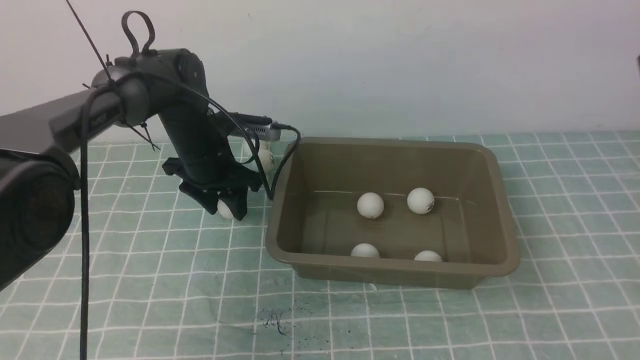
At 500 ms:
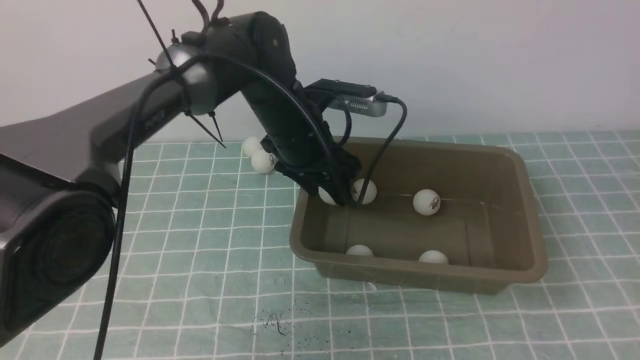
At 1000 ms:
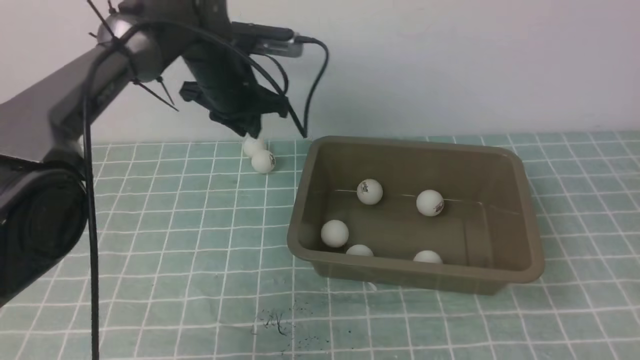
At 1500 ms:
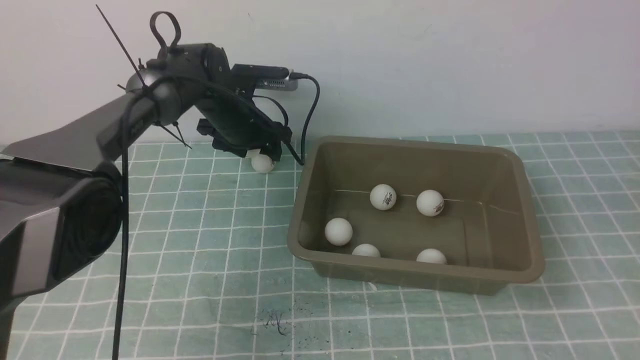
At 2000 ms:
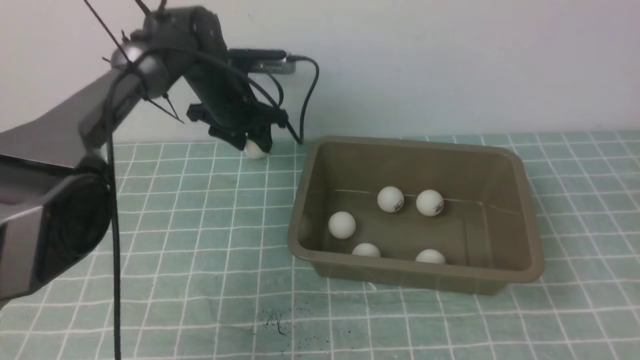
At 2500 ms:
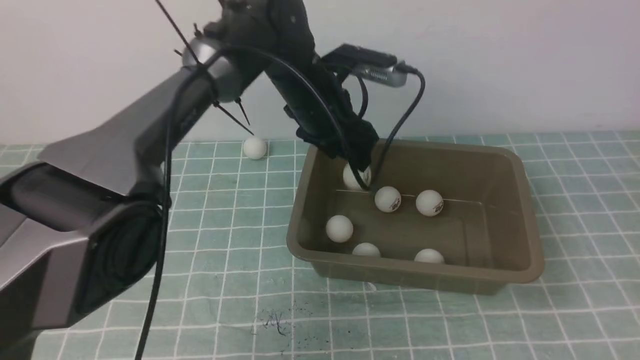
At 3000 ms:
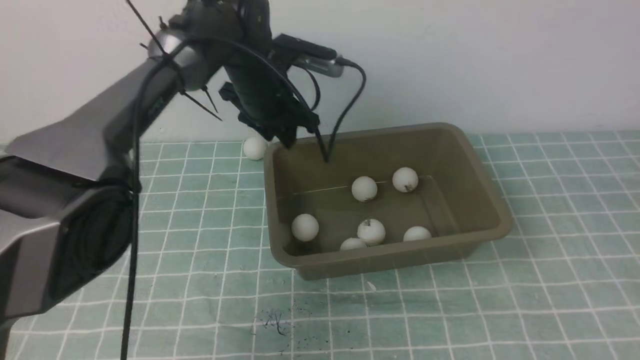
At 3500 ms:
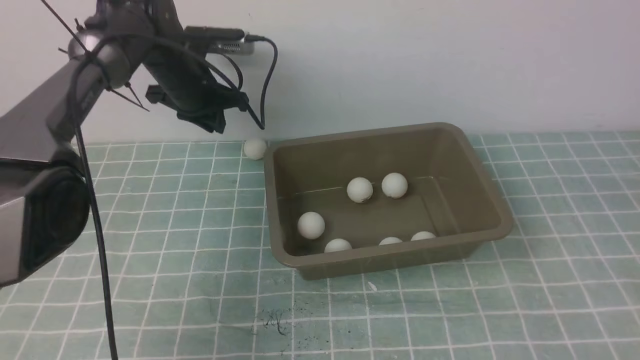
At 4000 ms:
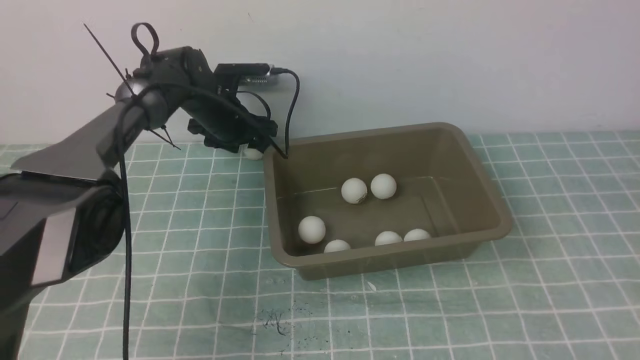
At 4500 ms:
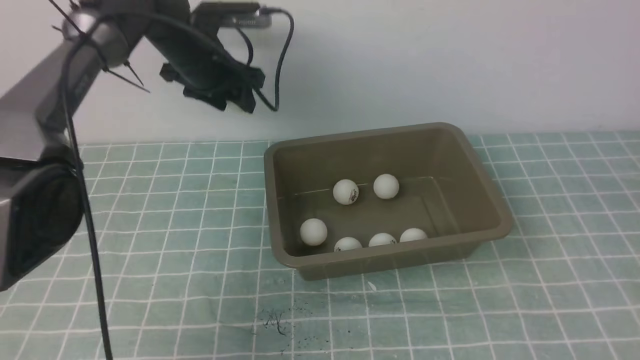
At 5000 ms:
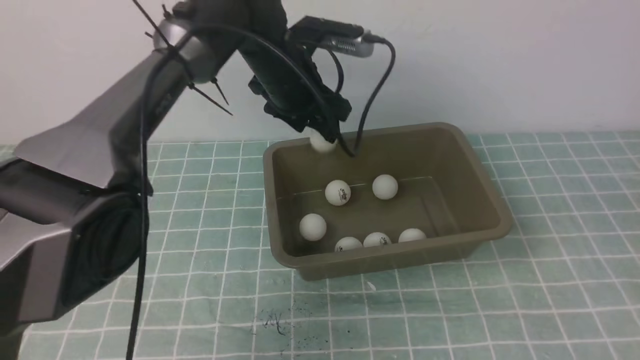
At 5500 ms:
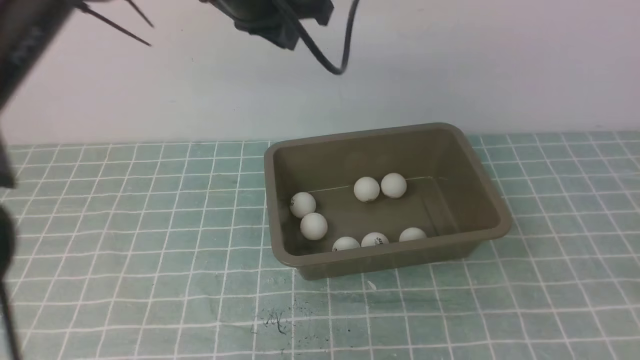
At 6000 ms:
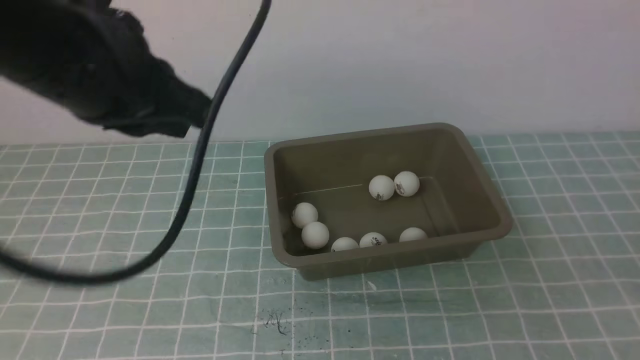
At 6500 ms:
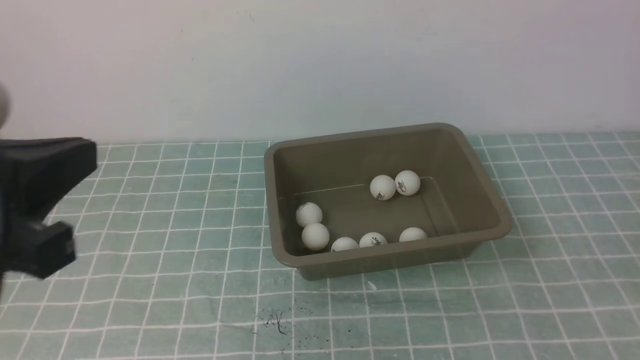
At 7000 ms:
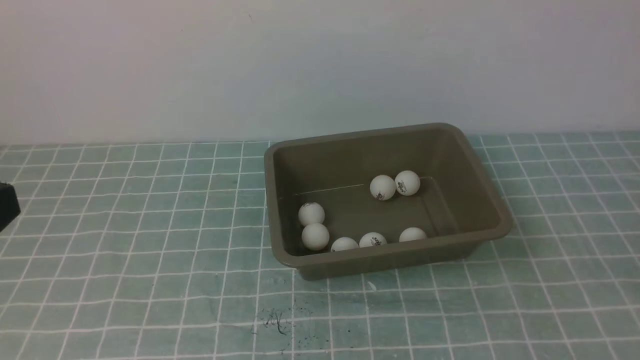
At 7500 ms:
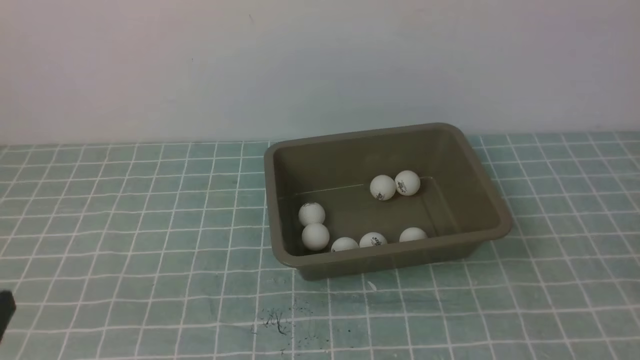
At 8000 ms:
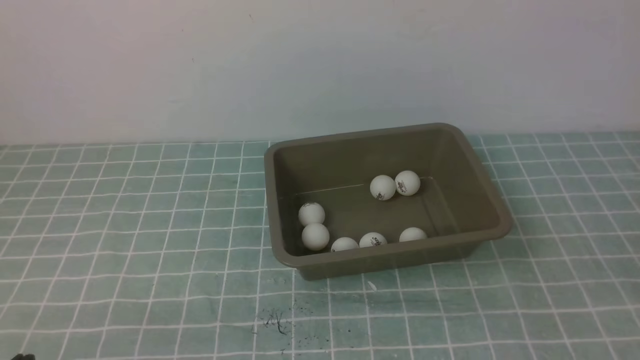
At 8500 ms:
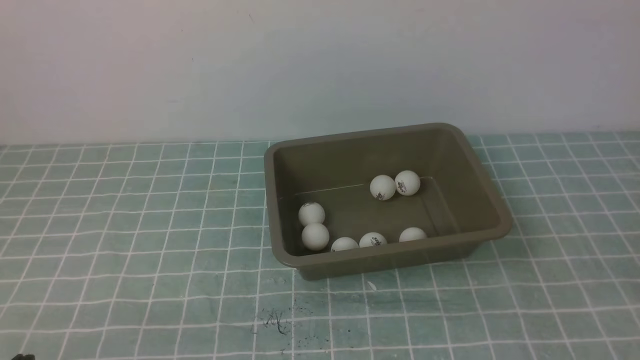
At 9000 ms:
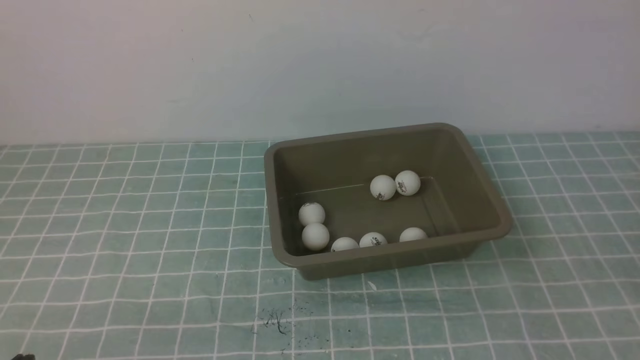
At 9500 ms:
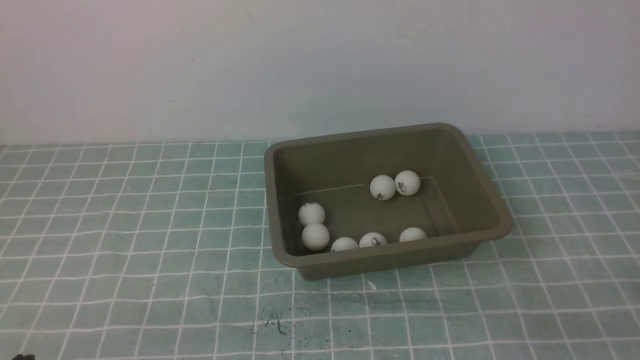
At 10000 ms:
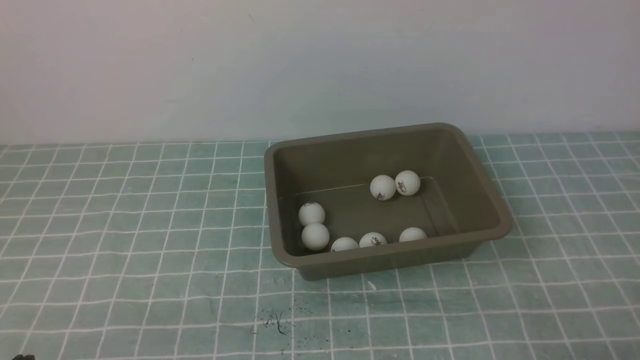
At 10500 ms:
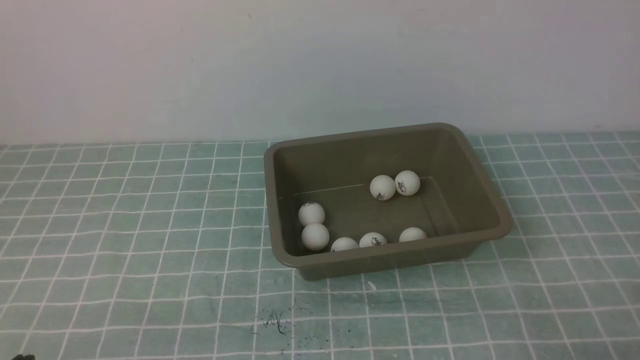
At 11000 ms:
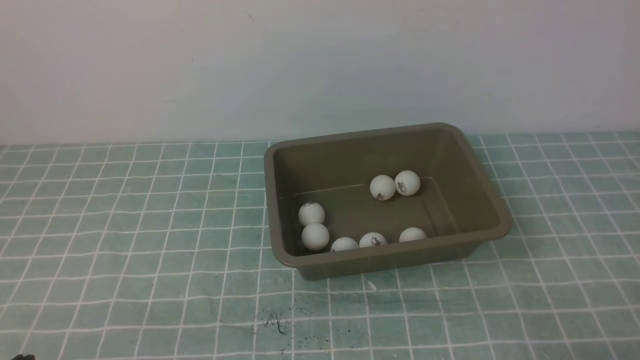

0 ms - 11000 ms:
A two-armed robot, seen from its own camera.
Step, 1000 ms - 2000 ms: use the left arm to clamp the table tennis ball closest to it.
Step, 2500 ms - 3000 ms: use the left arm to put the table tennis ball into the box.
Step, 3500 ms - 4500 ms: use the left arm to clamp the table tennis ball closest to it.
0 ms - 2000 ms: The right gripper travels backward by roughly 10 cm, and closes up. The left gripper moves forward, roughly 5 cm, and reaches approximately 10 cm to the right, then returns.
2000 ms - 3500 ms: The left gripper reaches about 10 cm to the right, then returns, and closes.
3500 ms - 5500 ms: The left gripper is displaced upward, backward and to the right by about 20 cm, and opens, then closes again, while the right gripper moves backward, some 15 cm.
5500 ms - 7500 ms: The right gripper moves downward, roughly 5 cm, while the left gripper travels backward and to the left by approximately 40 cm.
